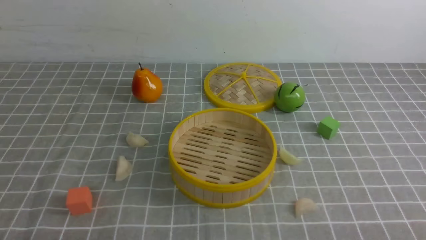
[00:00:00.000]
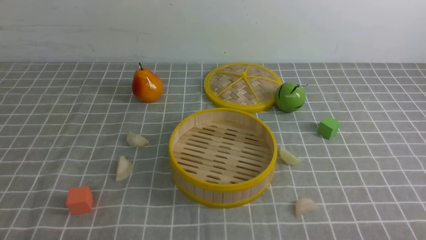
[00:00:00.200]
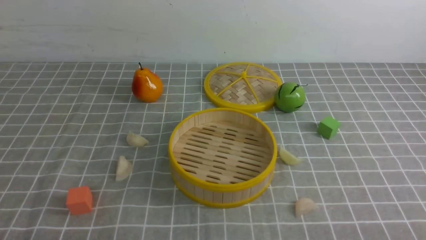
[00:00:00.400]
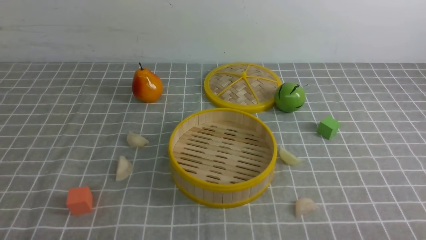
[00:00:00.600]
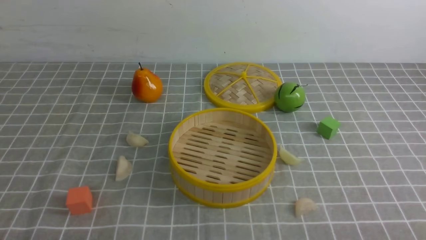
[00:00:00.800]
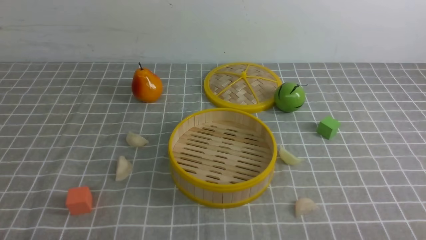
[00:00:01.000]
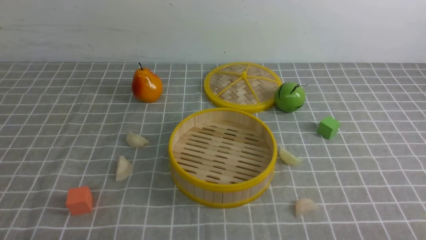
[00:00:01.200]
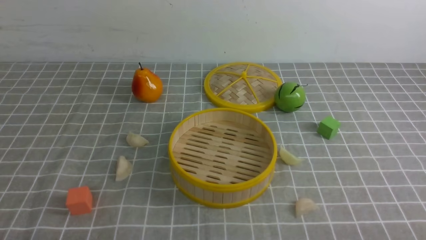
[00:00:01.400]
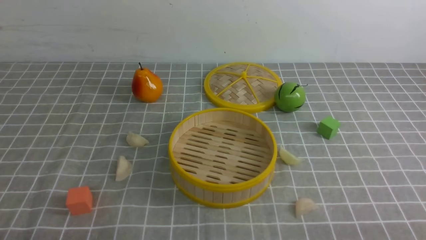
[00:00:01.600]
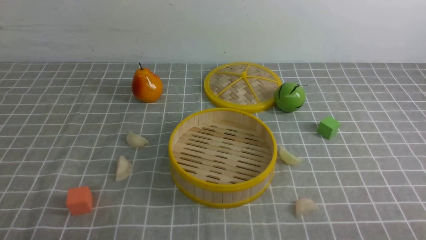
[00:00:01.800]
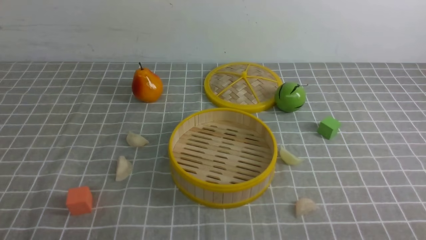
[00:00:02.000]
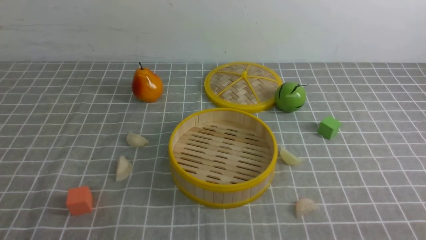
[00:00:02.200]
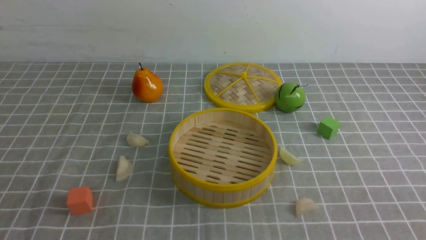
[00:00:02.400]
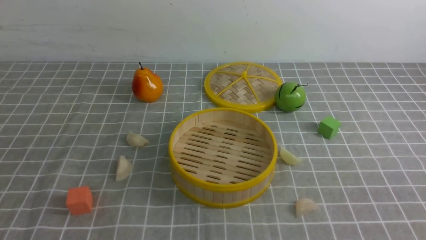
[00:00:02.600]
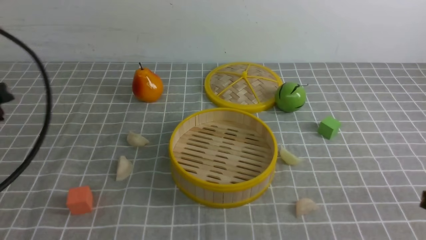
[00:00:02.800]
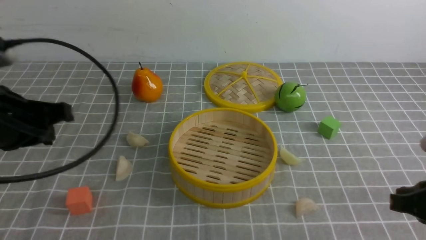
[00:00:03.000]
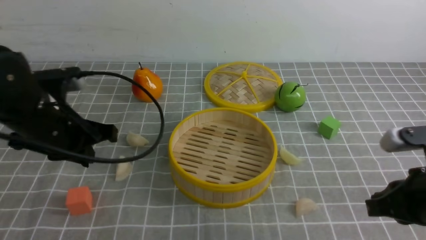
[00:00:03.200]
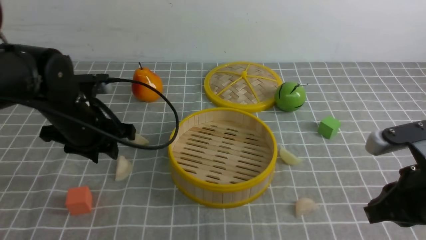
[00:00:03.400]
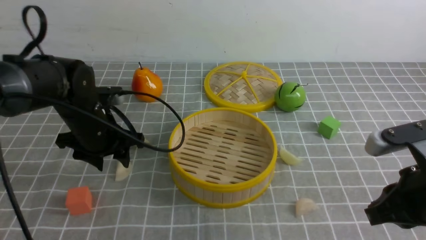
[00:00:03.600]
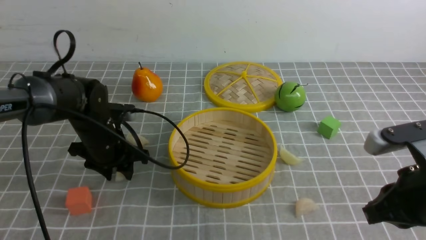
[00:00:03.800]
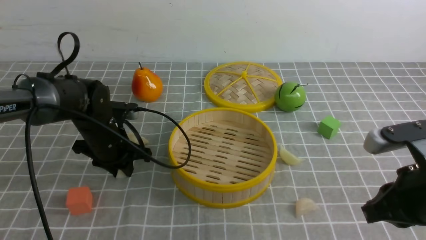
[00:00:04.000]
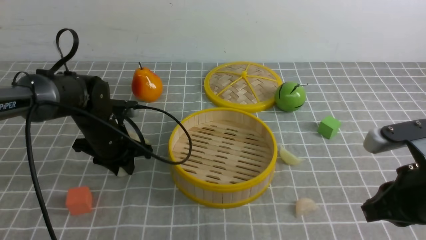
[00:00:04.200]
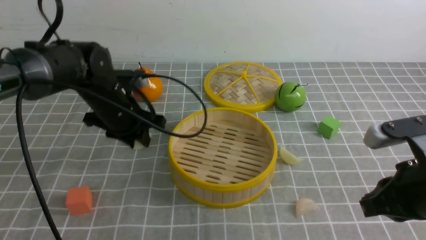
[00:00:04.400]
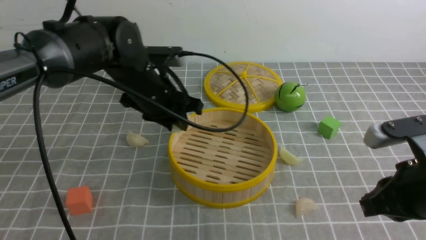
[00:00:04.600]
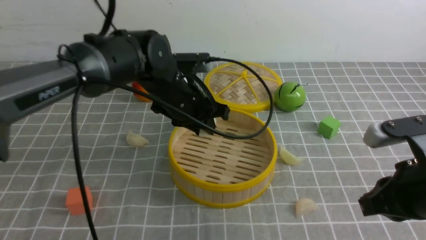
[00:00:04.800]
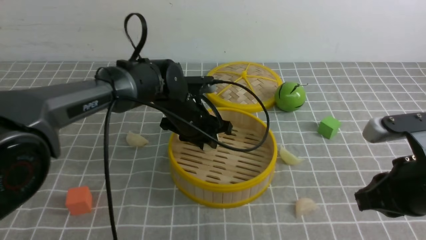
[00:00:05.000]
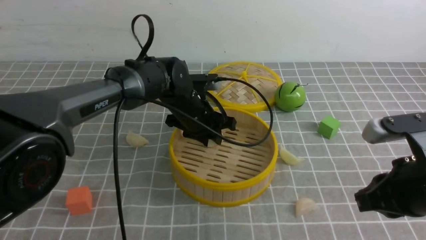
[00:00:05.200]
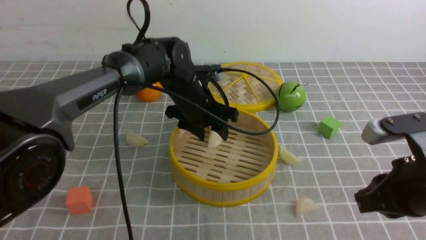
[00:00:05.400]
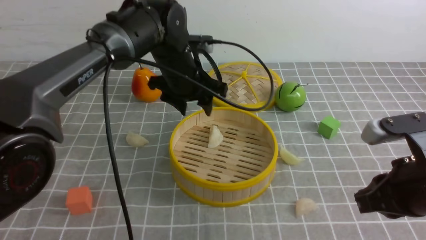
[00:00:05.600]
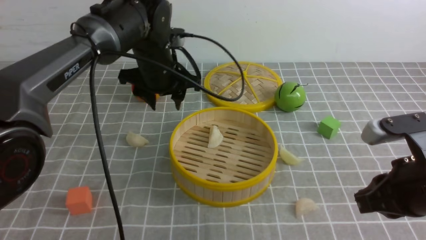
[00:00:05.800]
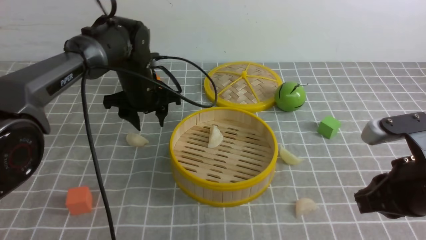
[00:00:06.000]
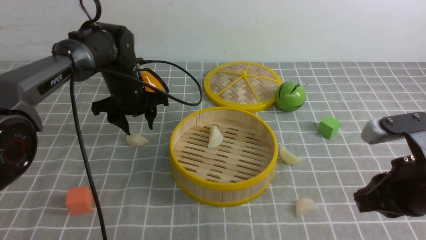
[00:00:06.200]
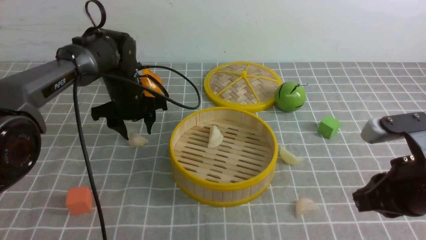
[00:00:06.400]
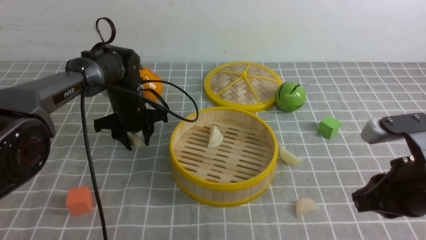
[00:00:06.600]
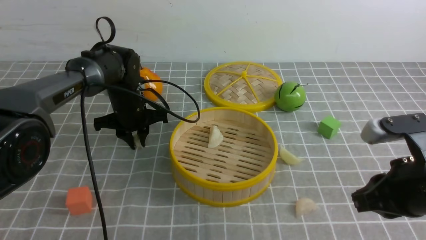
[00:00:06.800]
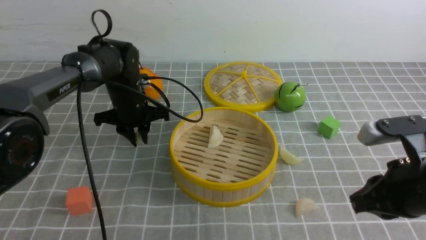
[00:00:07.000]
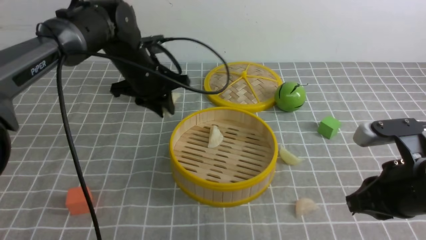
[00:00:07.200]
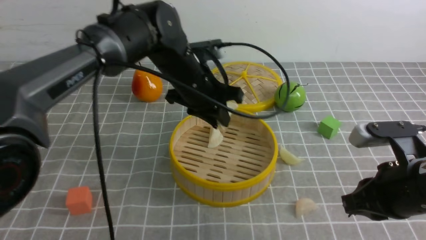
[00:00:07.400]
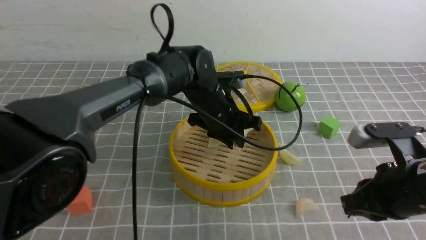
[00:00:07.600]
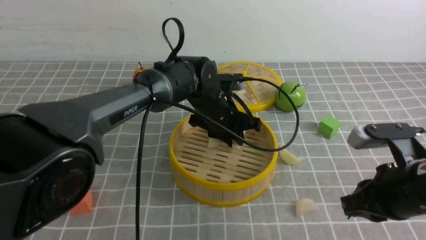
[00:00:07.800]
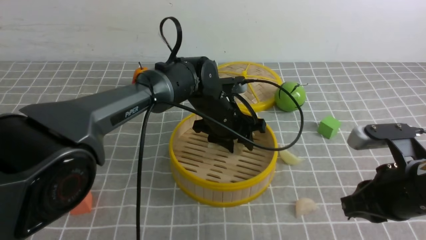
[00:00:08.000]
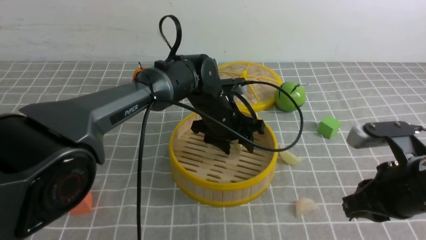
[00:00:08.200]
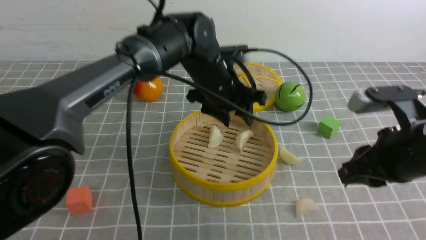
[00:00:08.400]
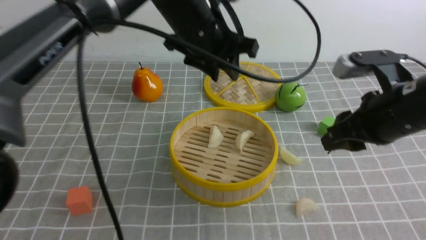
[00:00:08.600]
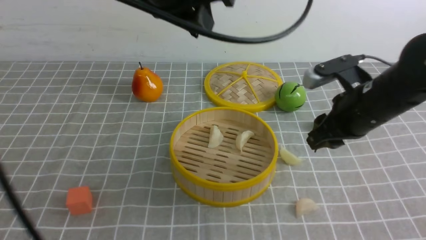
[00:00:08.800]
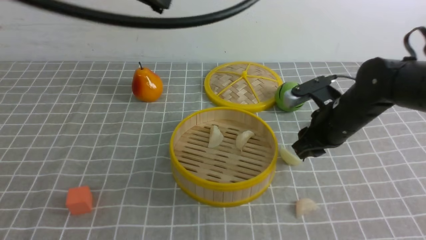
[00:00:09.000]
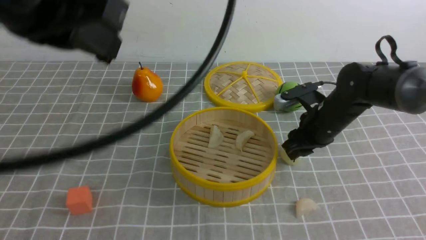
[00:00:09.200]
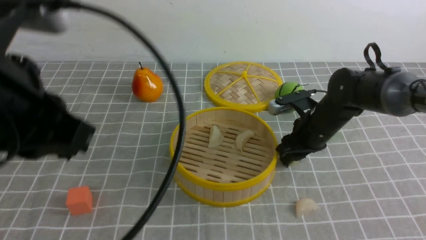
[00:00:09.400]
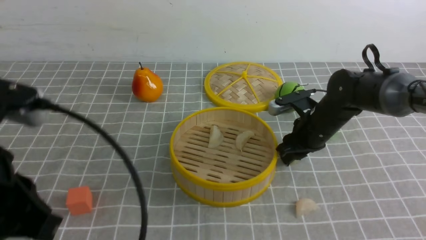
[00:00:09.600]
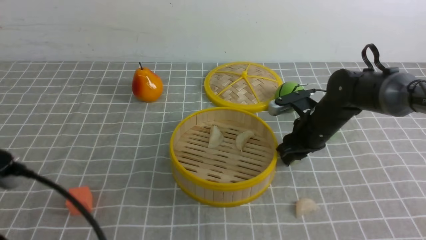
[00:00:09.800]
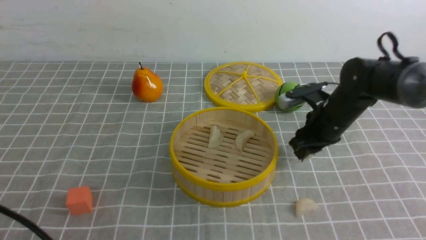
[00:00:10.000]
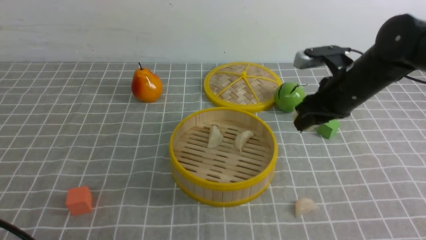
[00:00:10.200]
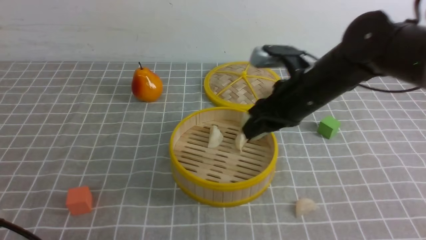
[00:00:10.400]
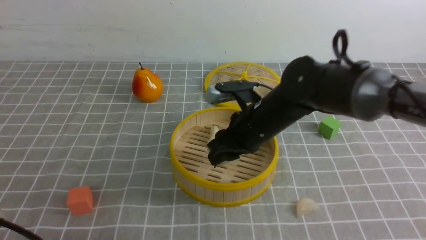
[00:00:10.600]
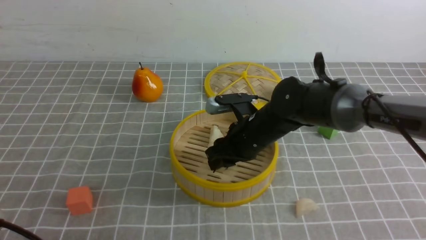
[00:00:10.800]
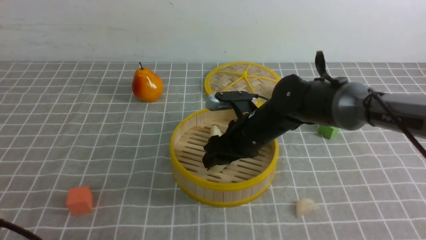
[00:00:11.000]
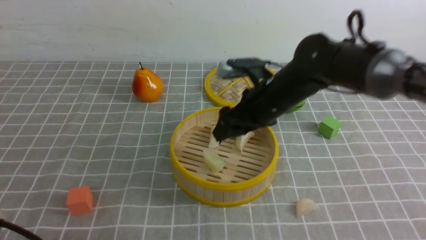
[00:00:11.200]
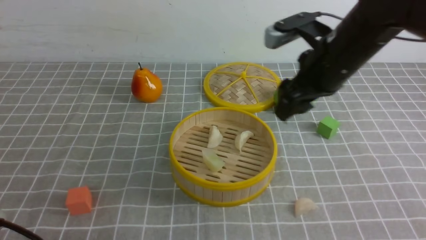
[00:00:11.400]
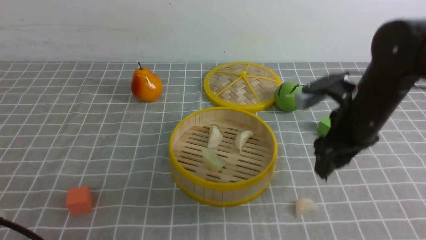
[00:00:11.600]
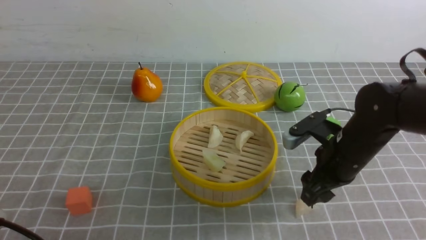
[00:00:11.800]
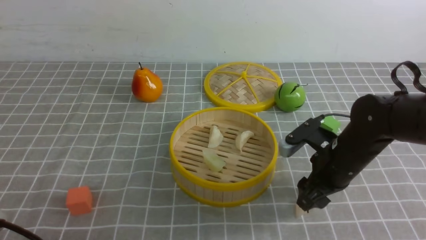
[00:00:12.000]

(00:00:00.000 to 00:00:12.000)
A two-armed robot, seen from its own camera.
Task of the whole recording: put the dumplings into the steamer on the table with the grey tablecloth.
Step, 00:00:00.000 - 00:00:04.200: use the left arm to grab a dumpling.
Step, 00:00:04.400 - 00:00:05.400: use the left arm to put the dumpling into the steamer.
Step, 00:00:05.600 - 00:00:07.000: use the left arm to grab a dumpling.
Step, 00:00:07.200 - 00:00:08.400: use the left arm to put the dumpling into the steamer.
Step, 00:00:08.600 - 00:00:09.800: use the right arm to grab a dumpling.
Step, 00:00:10.000 - 00:00:11.000: use the right arm to put the dumpling into the steamer.
00:00:01.600 - 00:00:03.000: The right gripper goes some 15 cm forward and upward, and closes. The left gripper is displaced forward and upward by approximately 25 cm, and closes its fingers.
00:00:03.000 - 00:00:04.400: The left gripper is displaced forward, to the right and downward by approximately 20 cm, and opens its fingers.
00:00:04.400 - 00:00:06.000: The left gripper is displaced forward by about 5 cm, goes to the right and returns, approximately 10 cm each way, and opens up.
00:00:06.000 - 00:00:07.600: The left gripper goes approximately 15 cm to the right, and closes.
00:00:07.600 - 00:00:09.000: The right gripper heads forward, covering some 15 cm, and opens up. The left gripper heads upward, backward and to the left, covering about 35 cm, and opens, then closes once more.
00:00:09.000 - 00:00:10.400: The left gripper goes some 30 cm downward, backward and to the left. Meanwhile the right gripper is displaced to the left by some 5 cm.
00:00:10.400 - 00:00:12.000: The right gripper goes about 10 cm downward and to the right, and opens up.

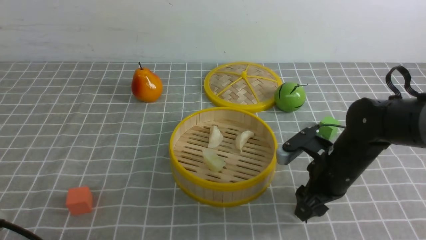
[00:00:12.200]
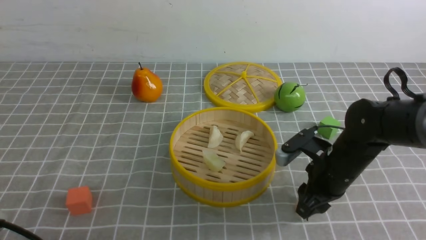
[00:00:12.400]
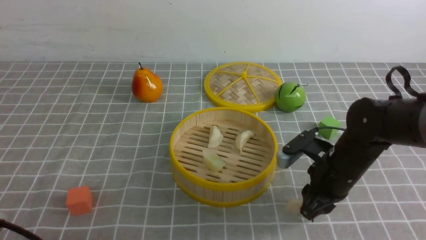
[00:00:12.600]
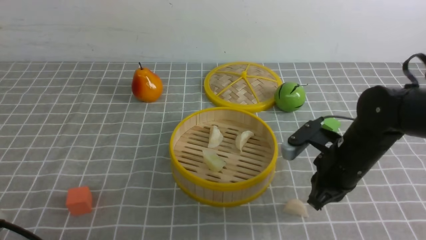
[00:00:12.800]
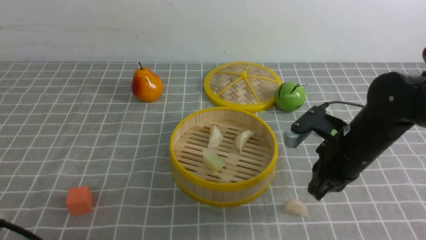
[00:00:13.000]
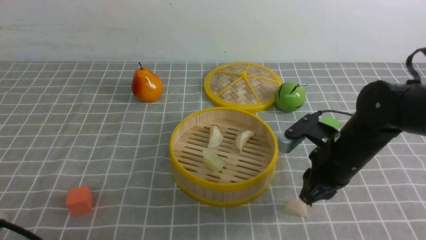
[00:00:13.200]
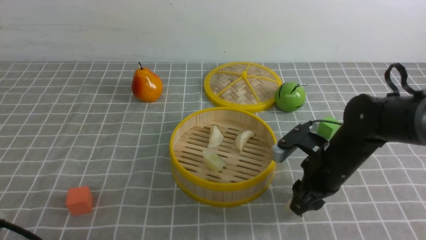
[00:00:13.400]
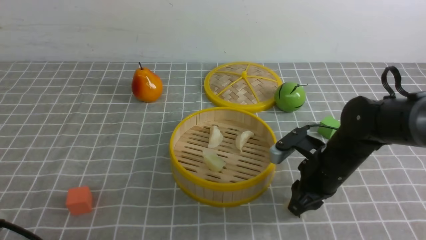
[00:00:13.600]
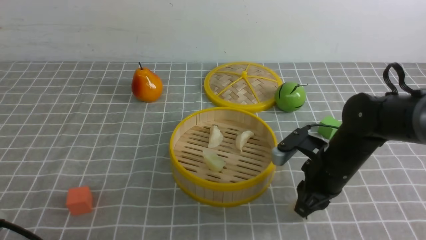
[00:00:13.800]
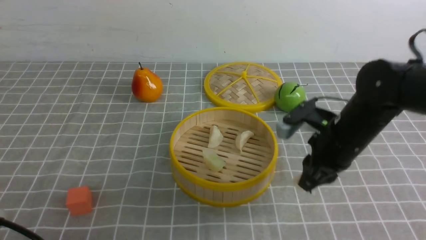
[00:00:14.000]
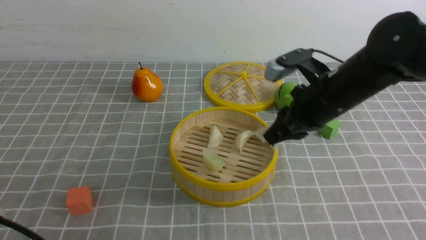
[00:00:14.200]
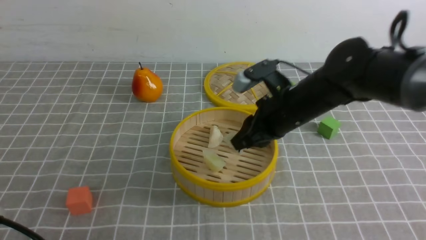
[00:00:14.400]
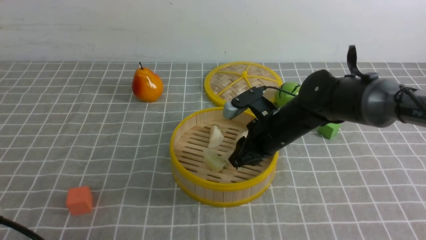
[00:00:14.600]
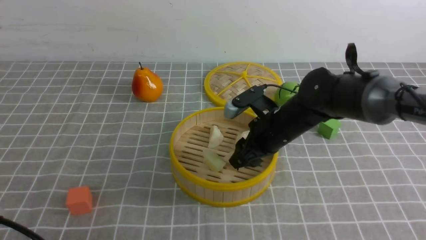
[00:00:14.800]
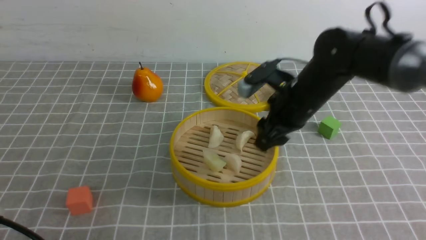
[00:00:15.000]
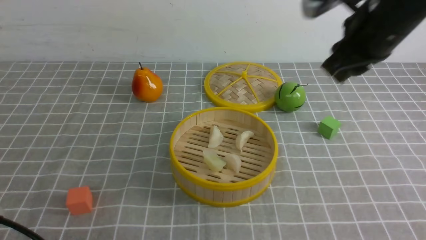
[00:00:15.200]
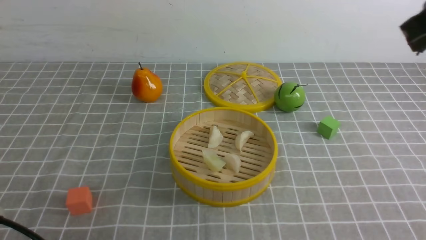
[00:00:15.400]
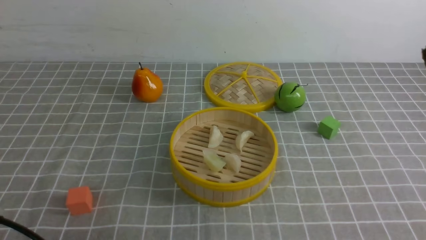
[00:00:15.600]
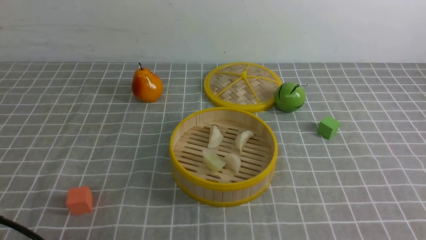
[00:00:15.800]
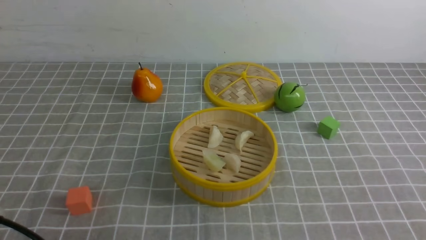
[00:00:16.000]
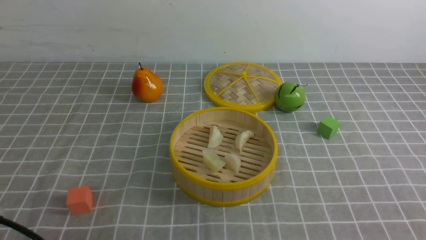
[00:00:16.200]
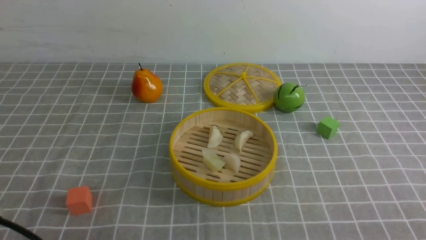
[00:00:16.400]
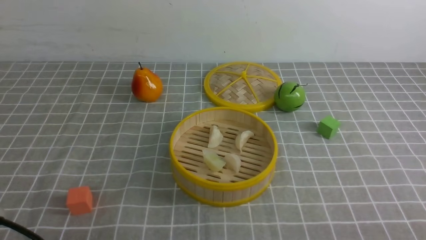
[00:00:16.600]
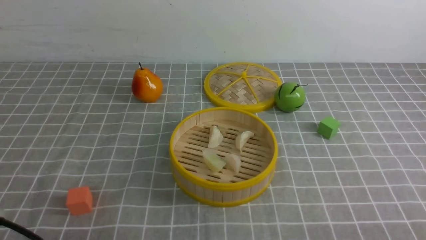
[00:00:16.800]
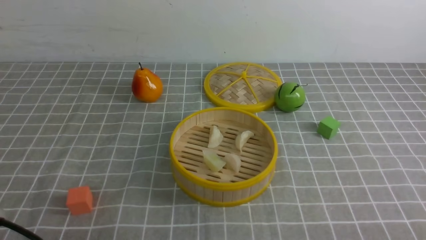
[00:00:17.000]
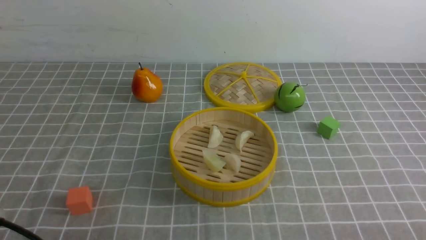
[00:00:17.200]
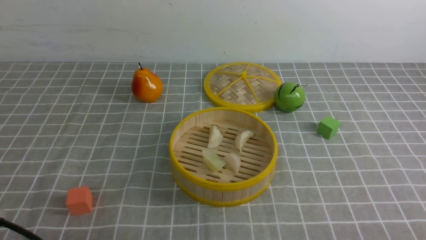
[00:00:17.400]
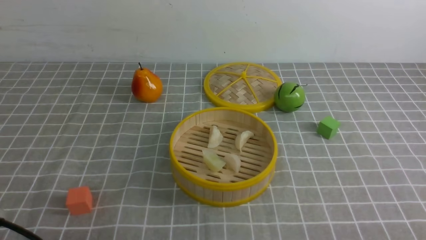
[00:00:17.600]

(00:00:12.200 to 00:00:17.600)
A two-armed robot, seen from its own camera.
Task of the whole recording: put the dumplings into the steamer on the table with the grey tablecloth.
Step, 00:00:12.200 - 00:00:13.800: use the right arm to grab a dumpling.
Step, 00:00:14.000 - 00:00:14.800: use the right arm to put the dumpling into the steamer.
00:00:12.200 - 00:00:13.600: The right gripper closes, then reopens.
00:00:13.600 - 00:00:15.000: The right gripper moves up and down over about 15 cm, changing direction 2 times.
00:00:15.000 - 00:00:16.200: The right gripper moves backward and to the right, some 35 cm, and closes its fingers.
